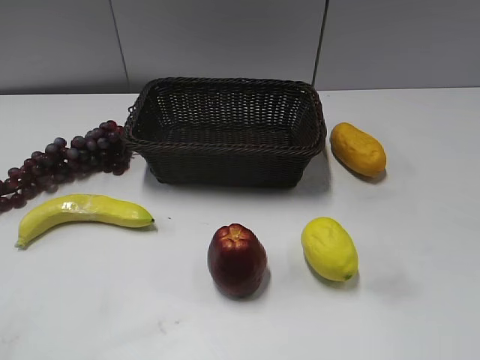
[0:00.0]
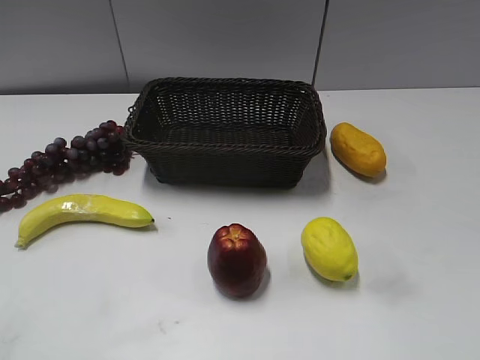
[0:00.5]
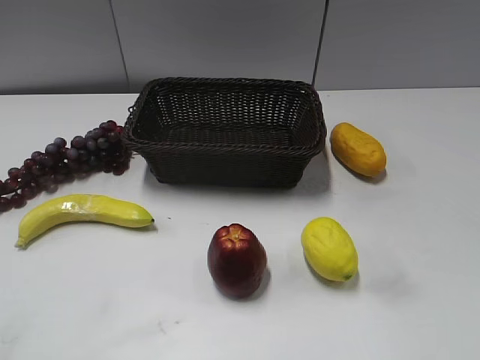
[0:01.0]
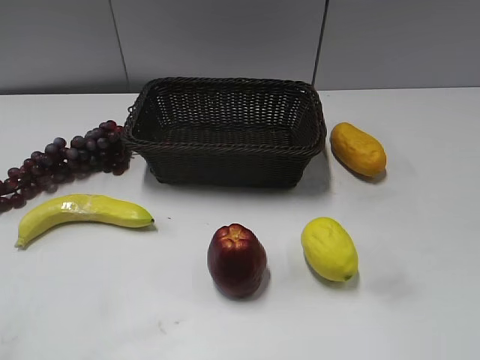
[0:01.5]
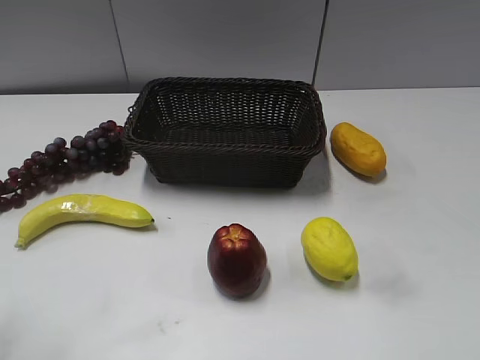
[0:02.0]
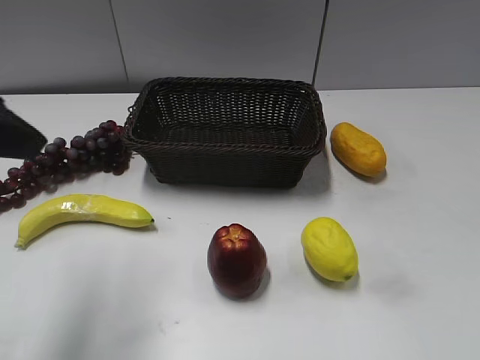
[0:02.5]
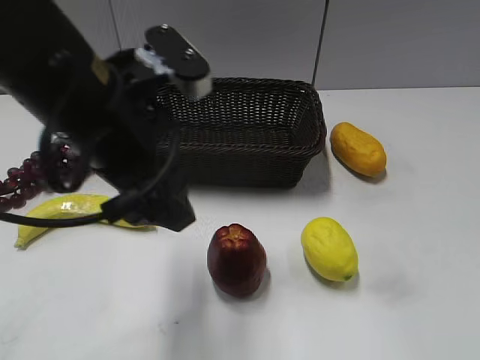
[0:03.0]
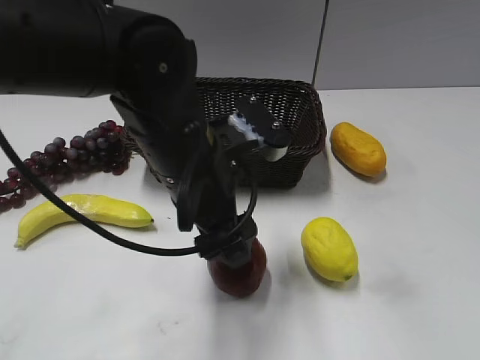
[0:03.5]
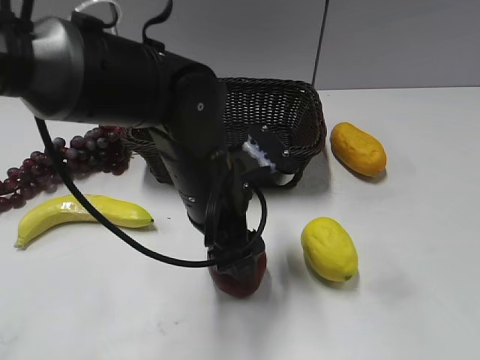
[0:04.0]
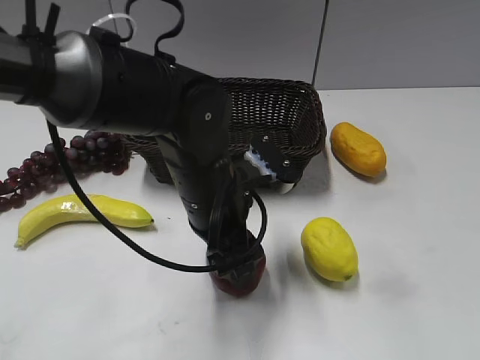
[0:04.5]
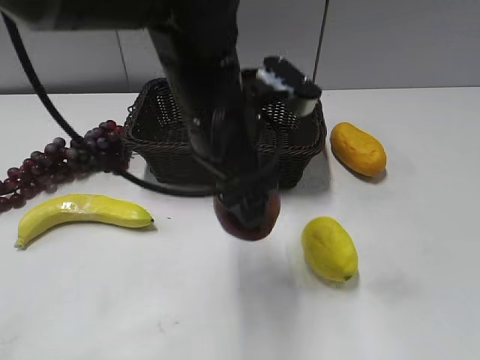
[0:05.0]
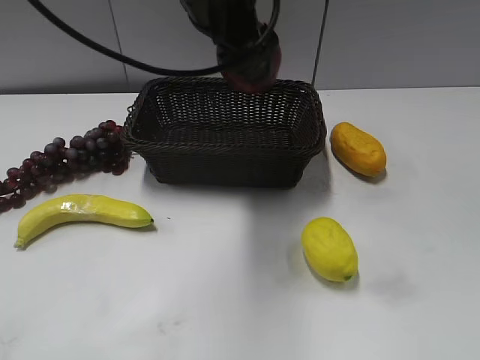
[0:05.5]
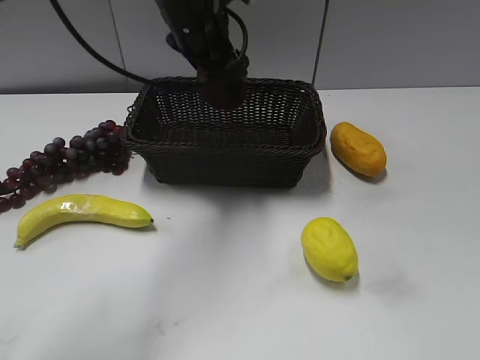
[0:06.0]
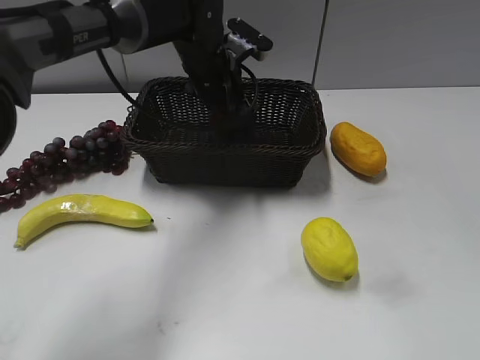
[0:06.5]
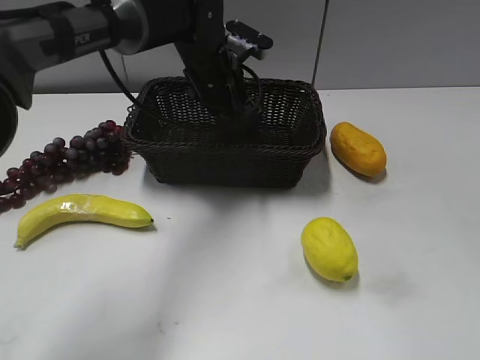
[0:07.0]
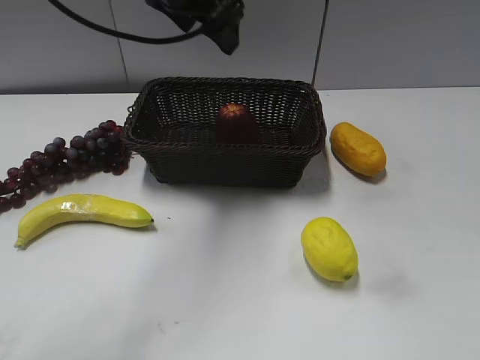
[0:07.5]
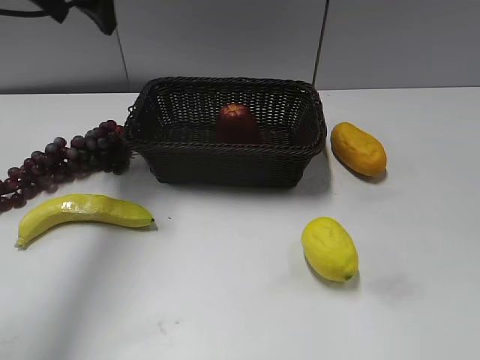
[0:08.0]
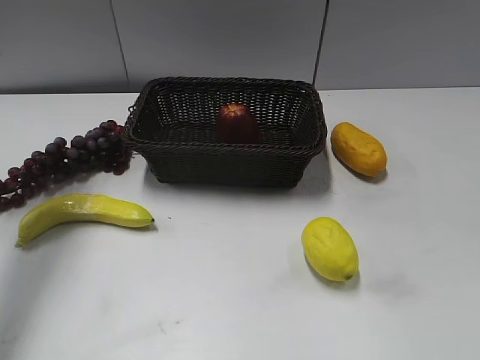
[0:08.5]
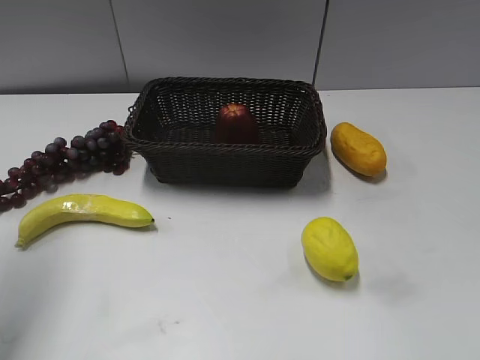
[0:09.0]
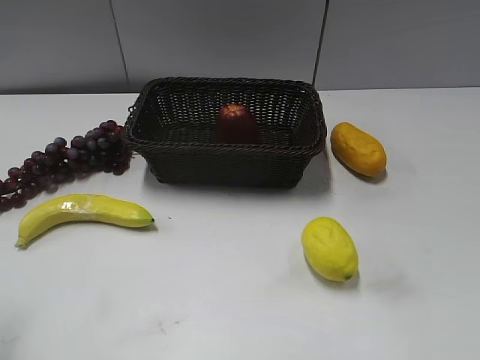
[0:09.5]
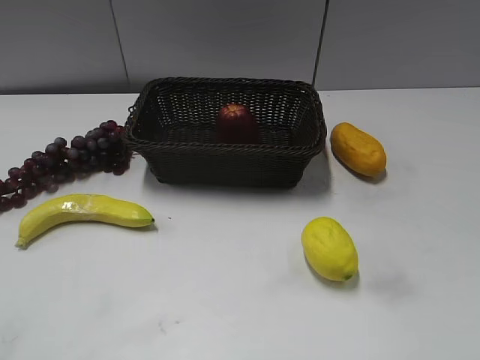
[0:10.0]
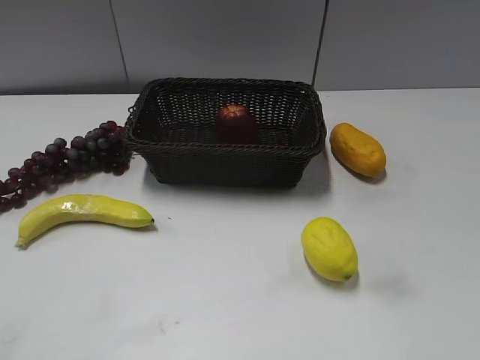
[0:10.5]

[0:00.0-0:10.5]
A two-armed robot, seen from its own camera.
Step, 0:02.5 to 0:04.0: Grasp the apple with left gripper.
Step, 0:04.5 to 0:06.5: Place the apple in the basket with left gripper.
0:02.0 to 0:04.0: The left gripper shifts roughly 35 cm to the right, downward and forward, and opens.
0:04.0 to 0:06.5: The left gripper travels forward by roughly 20 cm, and closes its fingers.
0:06.5 to 0:08.5: The left gripper is displaced to the left and upward by approximately 30 cm, and opens, then closes again.
0:08.5 to 0:10.5: The left gripper moves backward, roughly 35 cm.

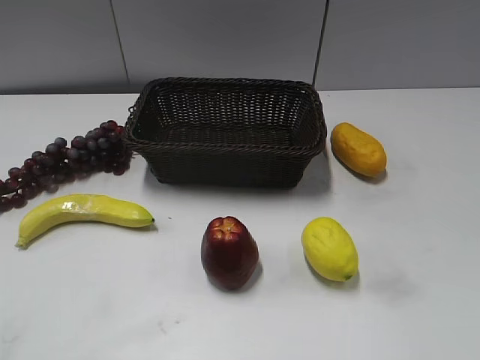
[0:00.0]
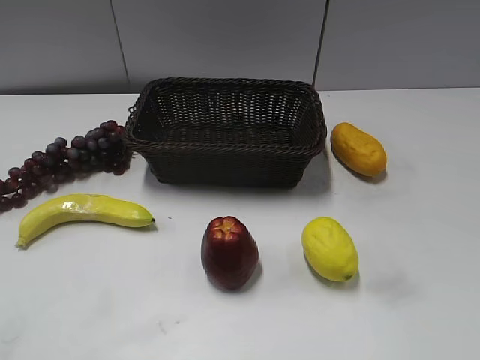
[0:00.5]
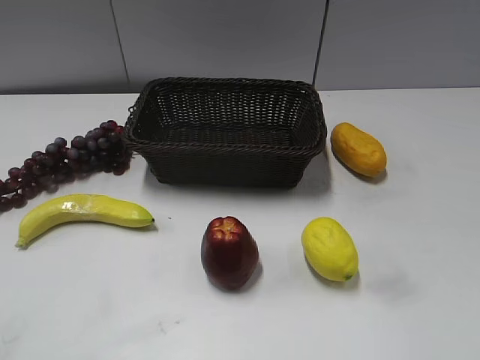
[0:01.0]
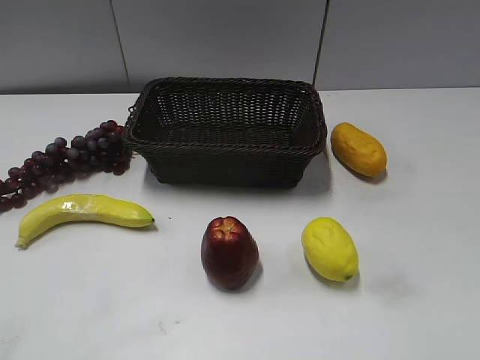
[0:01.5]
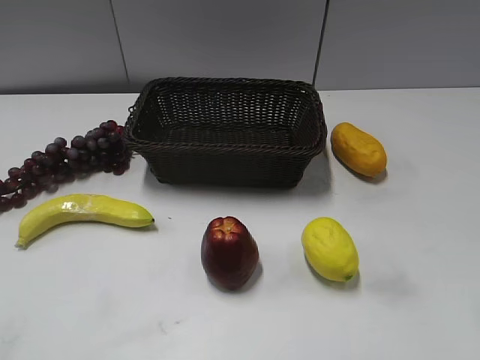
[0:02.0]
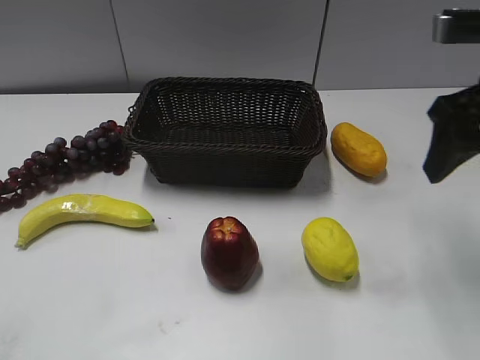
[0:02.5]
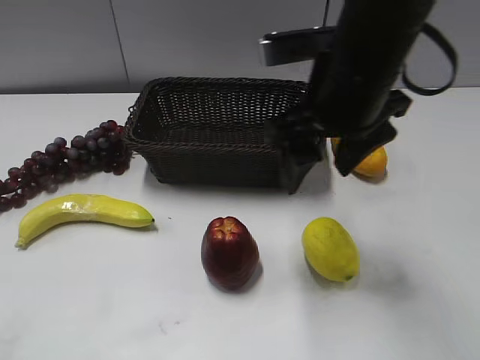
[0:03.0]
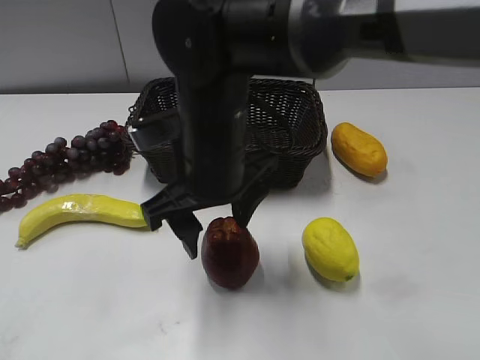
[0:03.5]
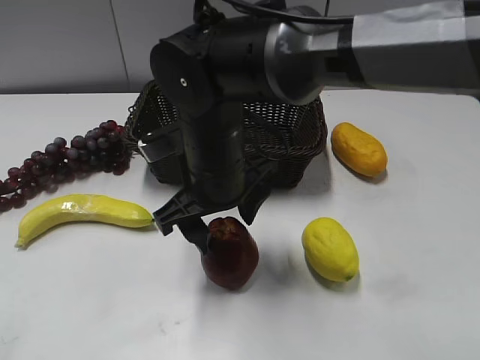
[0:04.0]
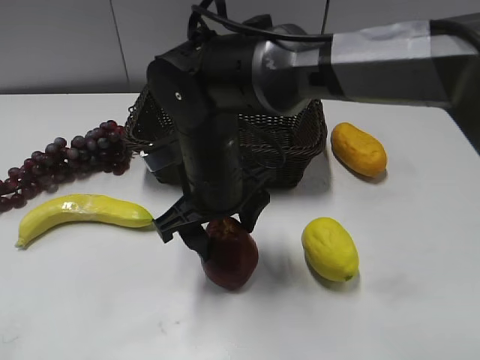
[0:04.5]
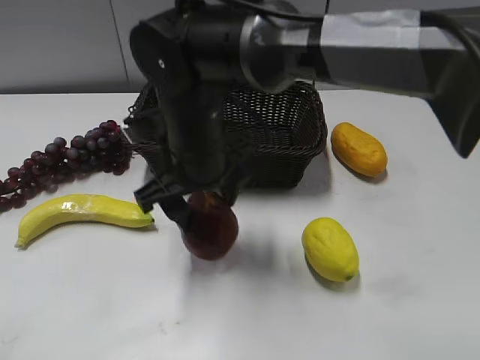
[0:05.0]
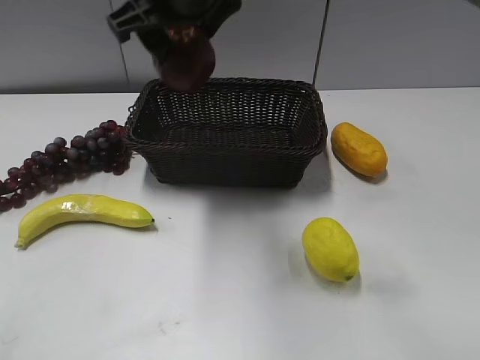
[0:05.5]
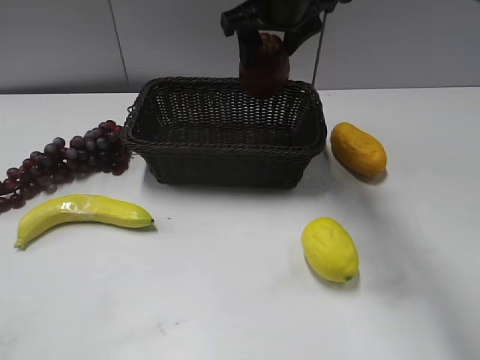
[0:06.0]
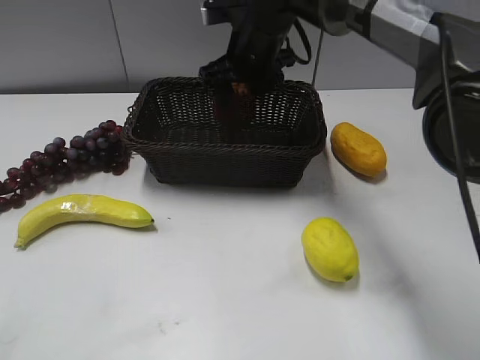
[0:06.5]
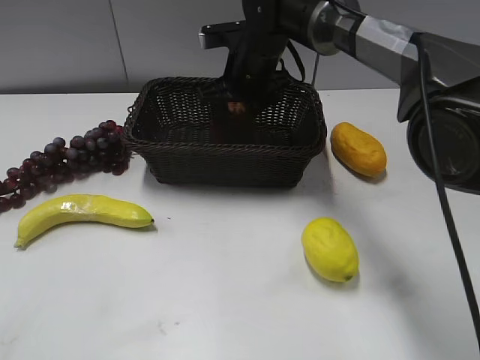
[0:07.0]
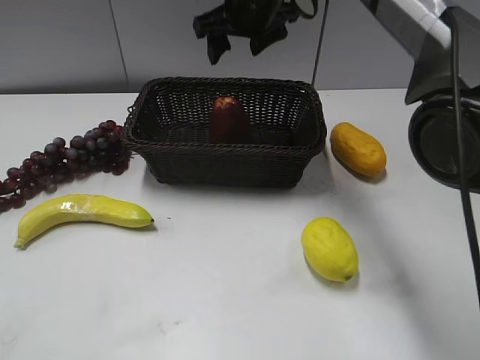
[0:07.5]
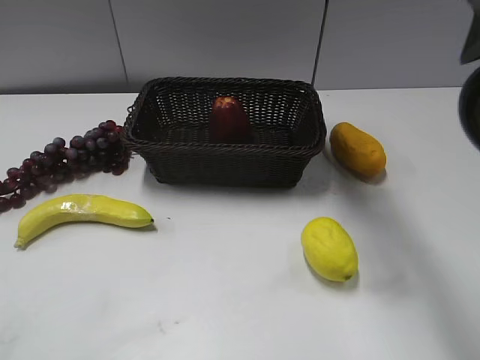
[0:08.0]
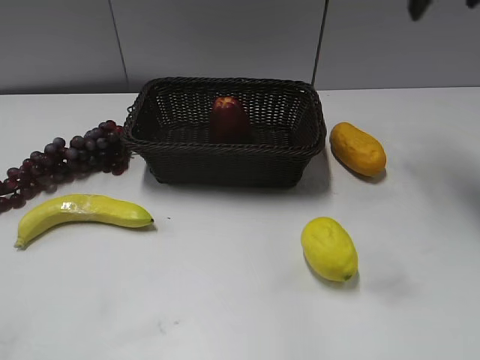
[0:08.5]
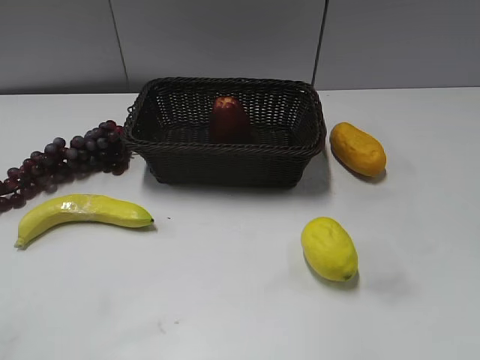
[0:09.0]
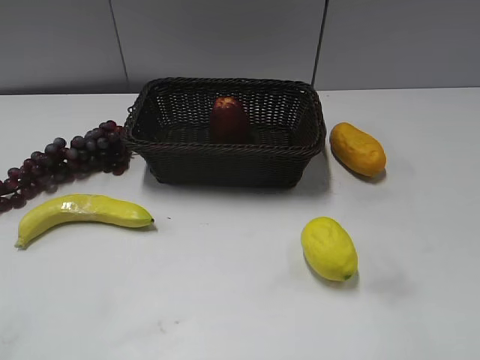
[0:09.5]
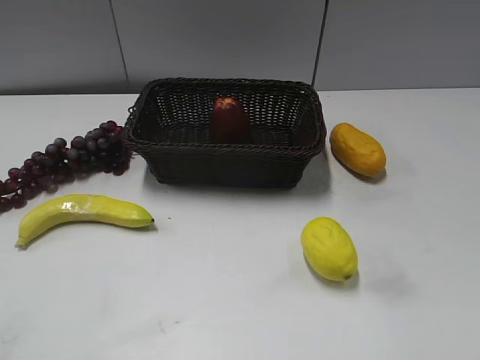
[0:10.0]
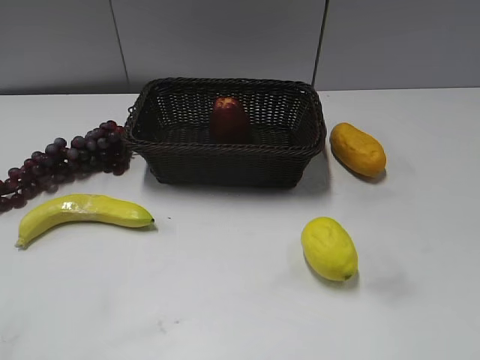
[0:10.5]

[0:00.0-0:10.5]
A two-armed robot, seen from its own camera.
Step, 0:02.5 to 0:04.5: Grasp the apple with right gripper.
Step, 0:05.0 to 0:06.5: Place the apple in the basket with right gripper.
0:02.0 to 0:04.0: The right gripper travels to the left and downward by roughly 35 cm.
0:04.0 to 0:06.5: The right gripper is displaced forward by roughly 20 cm.
0:06.5 to 0:08.5: The right gripper moves to the right and upward, approximately 25 cm.
0:08.5 to 0:10.5: The right gripper heads backward, covering roughly 40 cm.

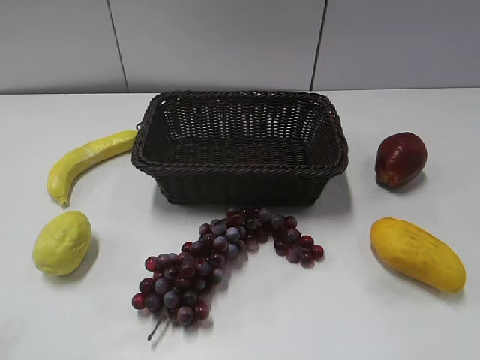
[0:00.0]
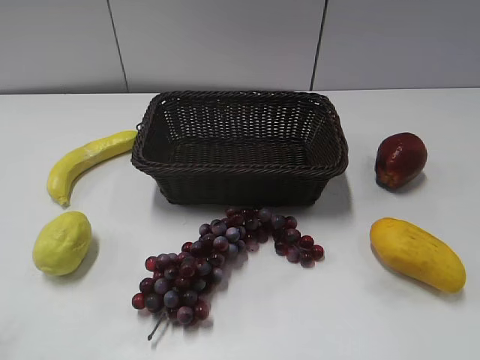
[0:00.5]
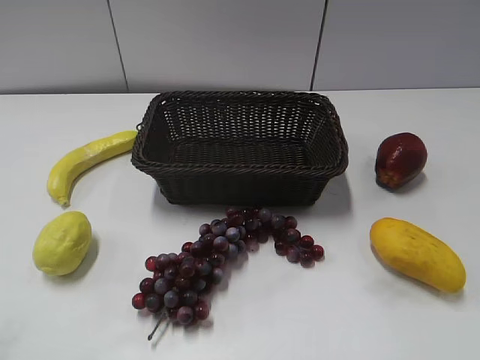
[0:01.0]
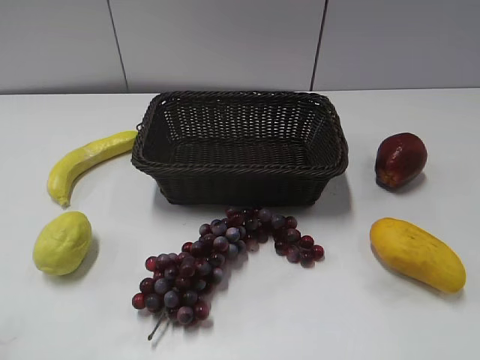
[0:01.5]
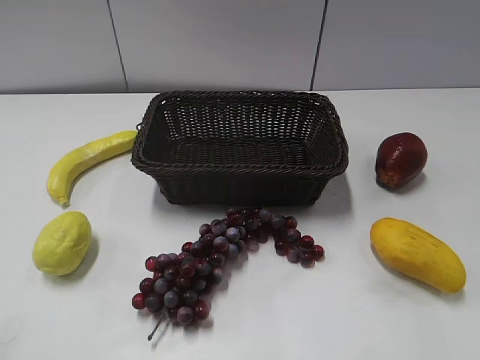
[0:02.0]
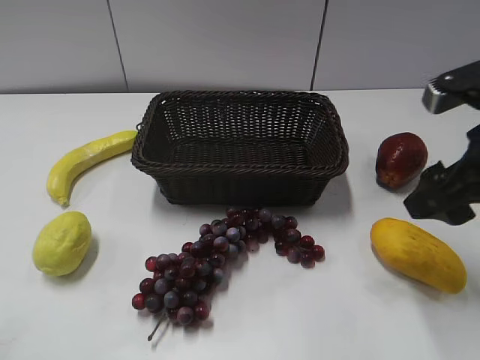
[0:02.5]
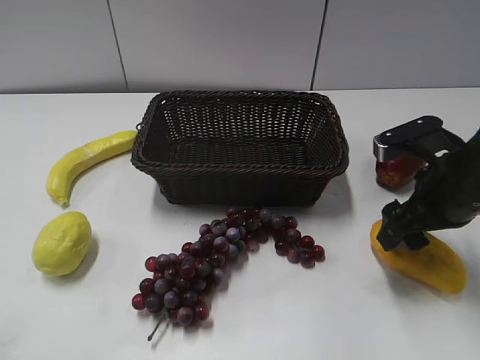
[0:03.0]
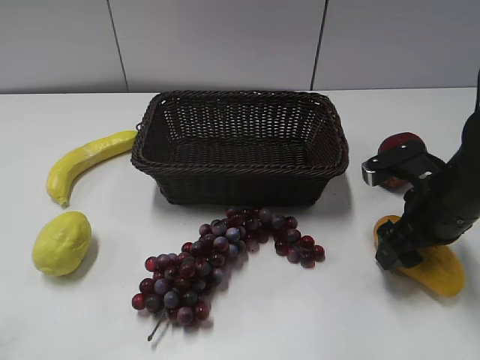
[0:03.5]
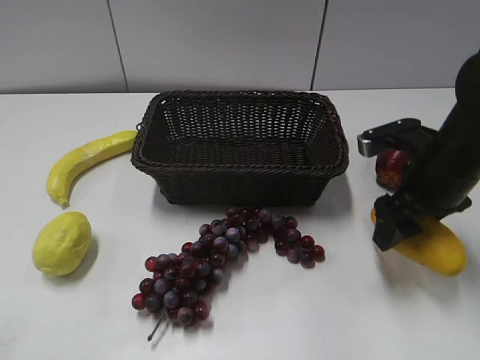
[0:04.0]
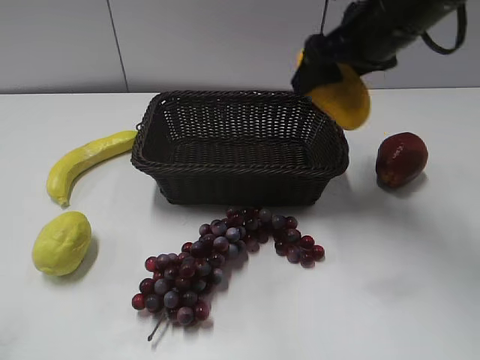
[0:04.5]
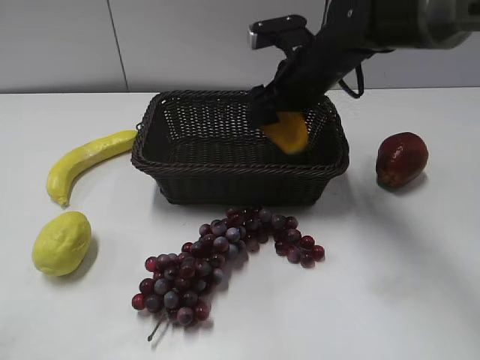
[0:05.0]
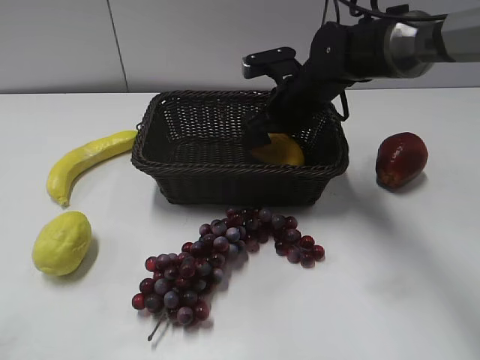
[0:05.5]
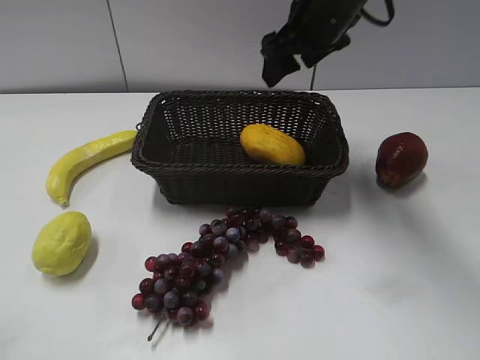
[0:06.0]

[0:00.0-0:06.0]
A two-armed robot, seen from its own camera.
Step, 0:02.5 to 0:03.5: Grasp the mango with right gripper.
Step, 0:04.0 to 0:05.0: Place the mango in the basket with right gripper.
0:02.0 to 0:04.0: The right gripper moves forward and downward, about 25 cm, and closes.
0:04.0 to 0:06.0: The right gripper is displaced forward, to the left and upward by about 20 cm, and opens.
